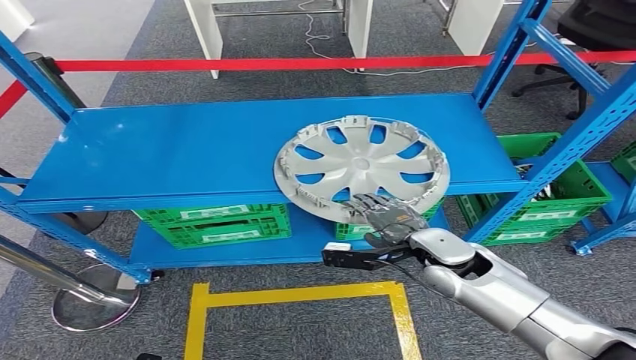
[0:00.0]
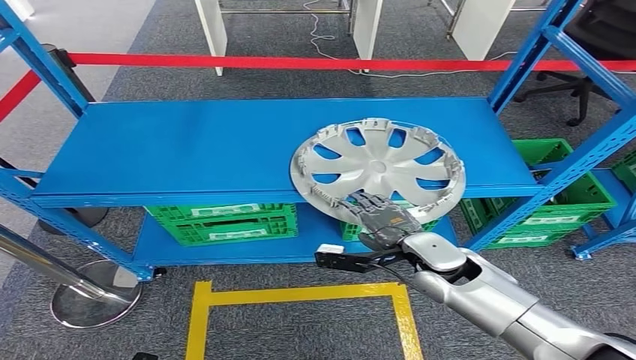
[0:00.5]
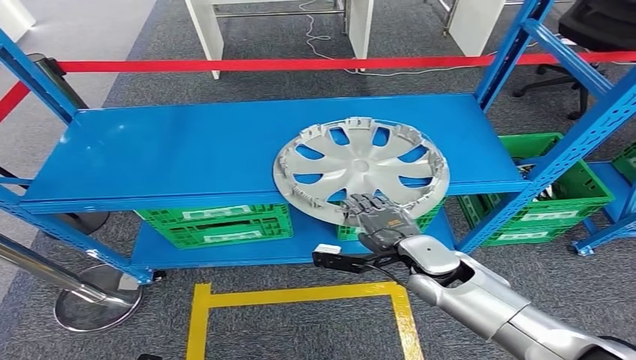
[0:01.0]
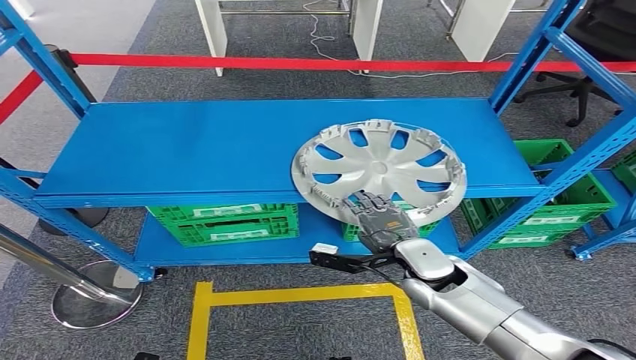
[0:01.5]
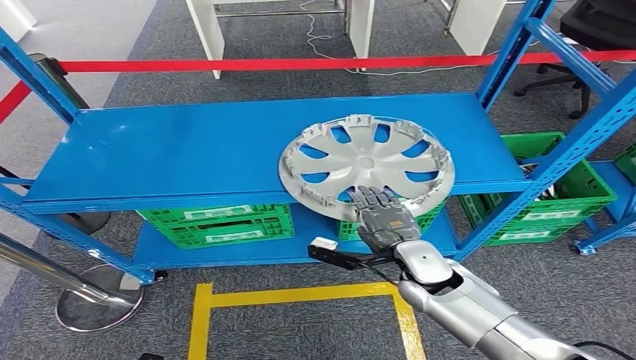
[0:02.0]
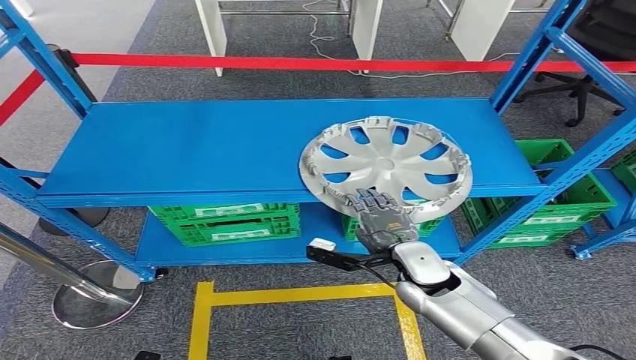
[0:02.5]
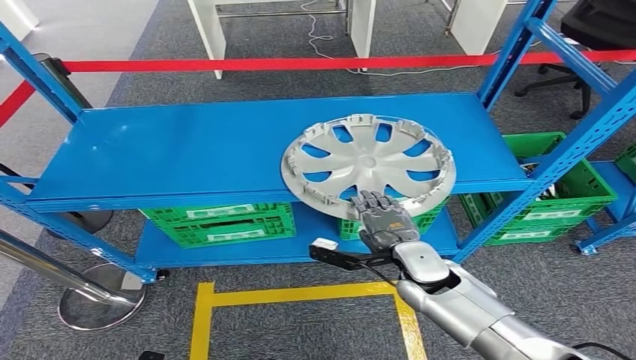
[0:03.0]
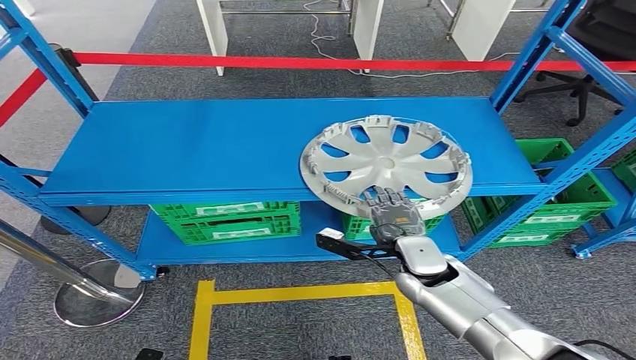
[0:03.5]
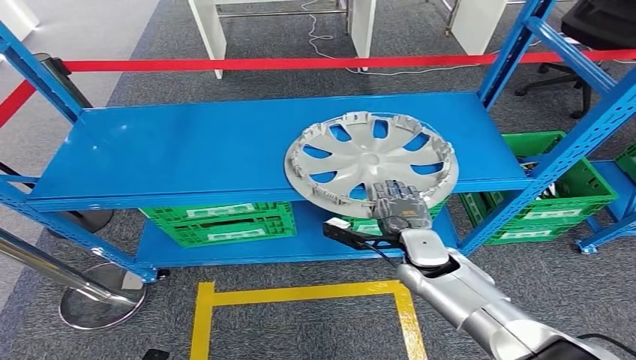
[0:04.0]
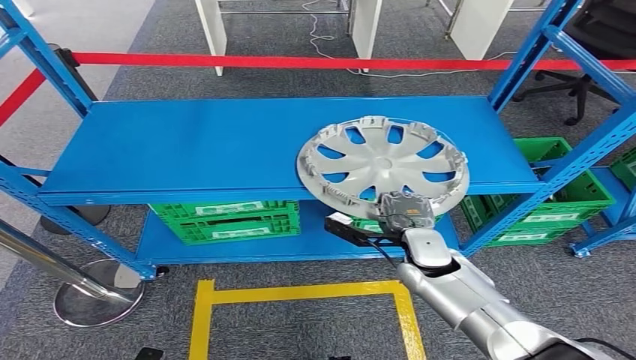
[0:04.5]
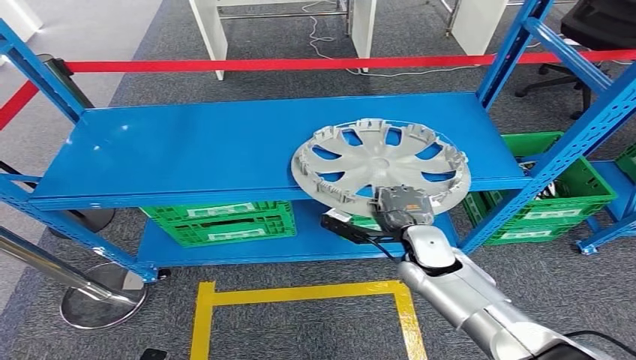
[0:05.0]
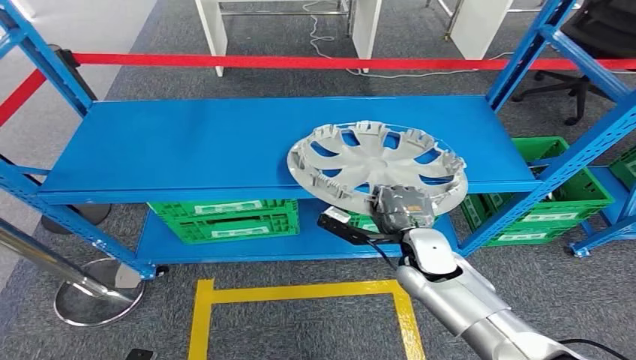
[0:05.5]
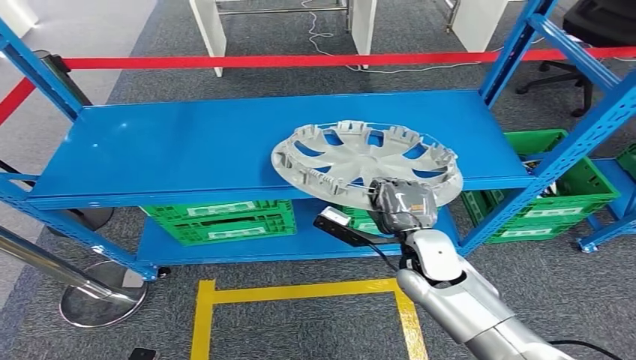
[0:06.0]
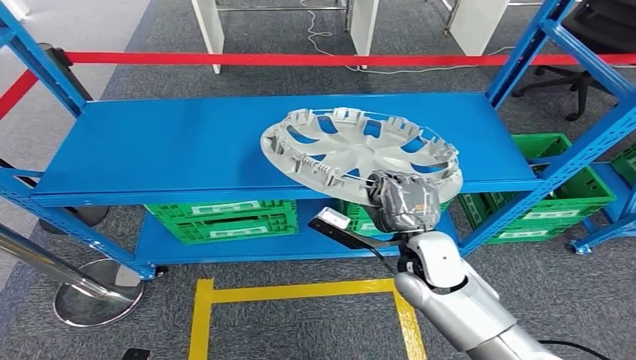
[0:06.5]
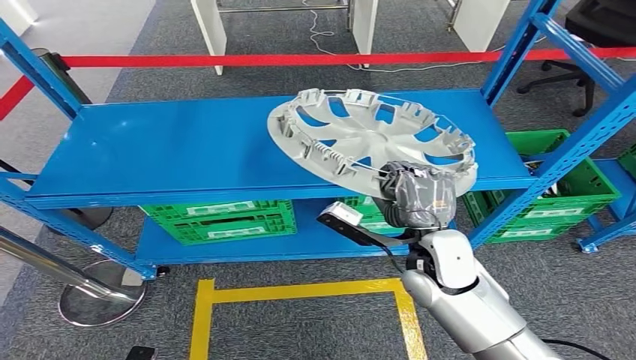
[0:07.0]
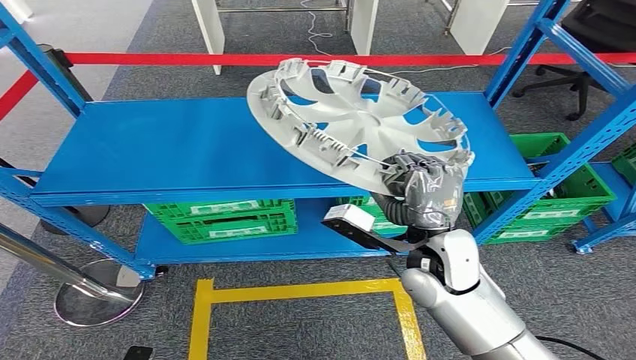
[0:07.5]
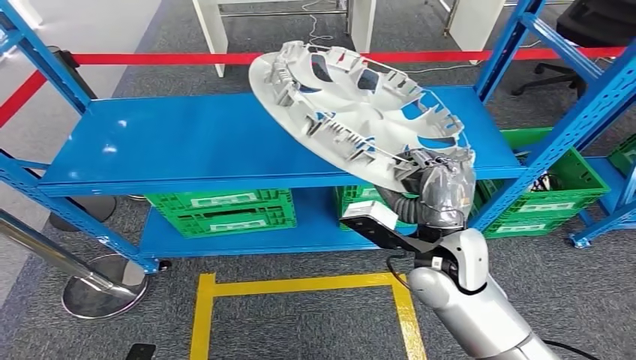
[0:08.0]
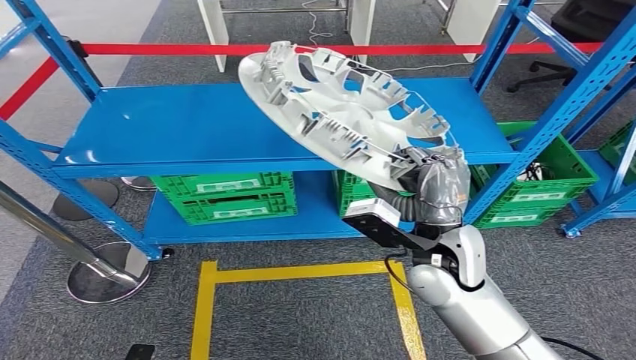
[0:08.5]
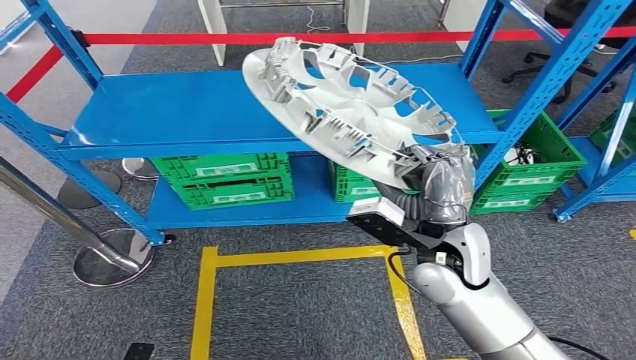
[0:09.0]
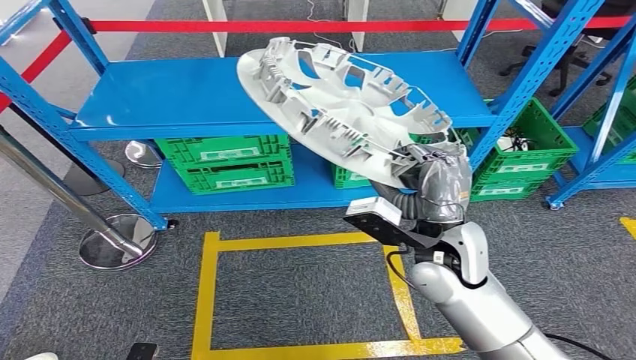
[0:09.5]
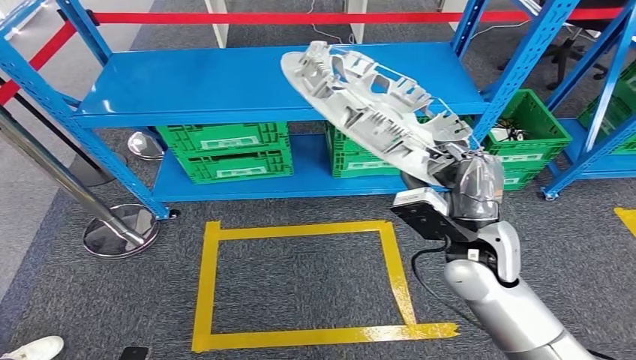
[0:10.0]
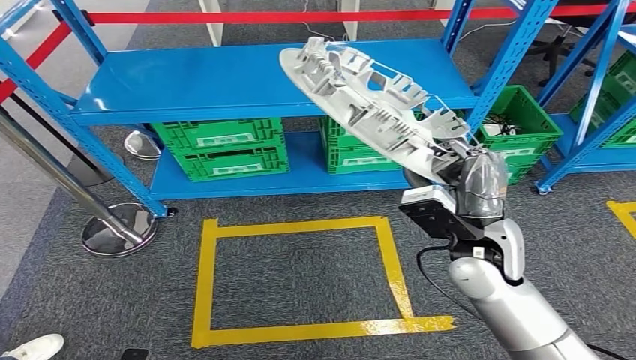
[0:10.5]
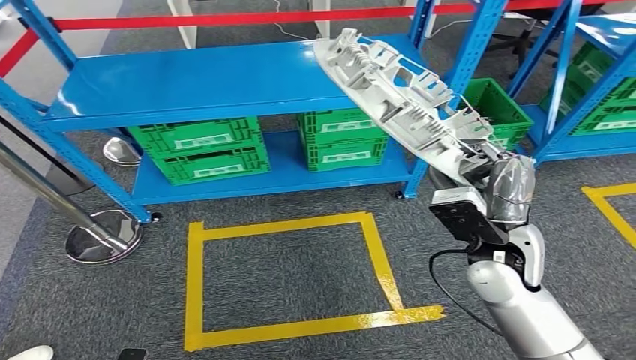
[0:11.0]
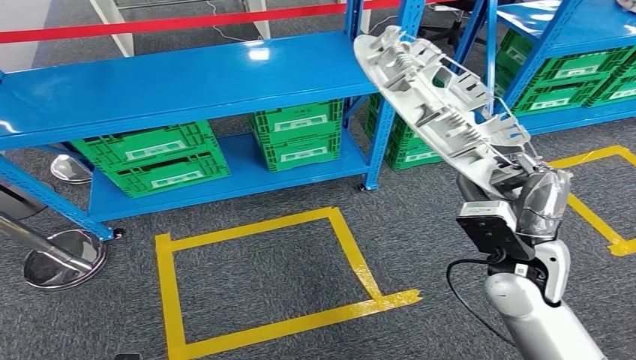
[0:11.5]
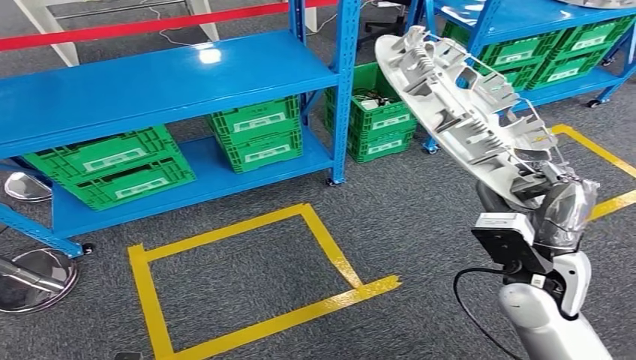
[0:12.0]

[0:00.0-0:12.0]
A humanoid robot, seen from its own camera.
Step, 0:00.0 to 0:08.0: Pick up the small component from the shelf.
0:00.0 to 0:02.0: The right hand changes place by some 5 cm.
0:02.0 to 0:04.0: The hands move only a little.

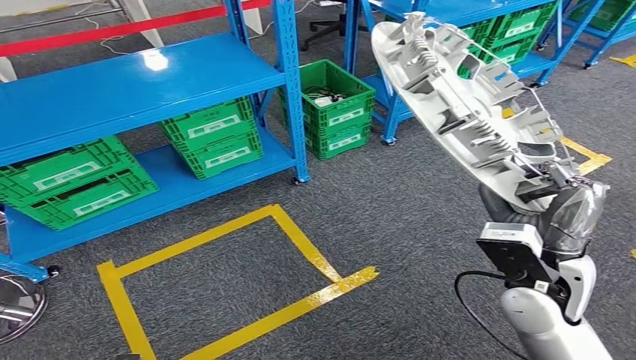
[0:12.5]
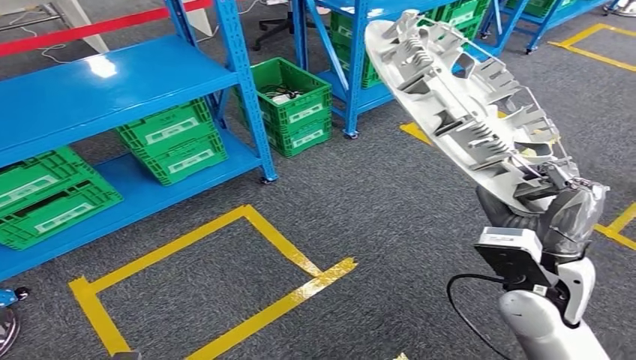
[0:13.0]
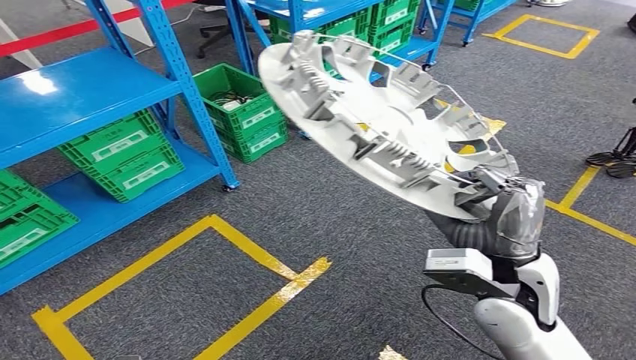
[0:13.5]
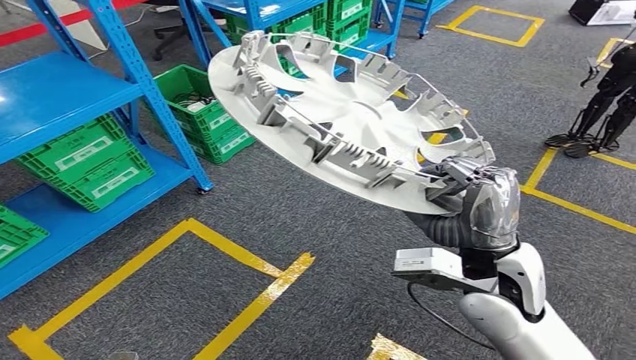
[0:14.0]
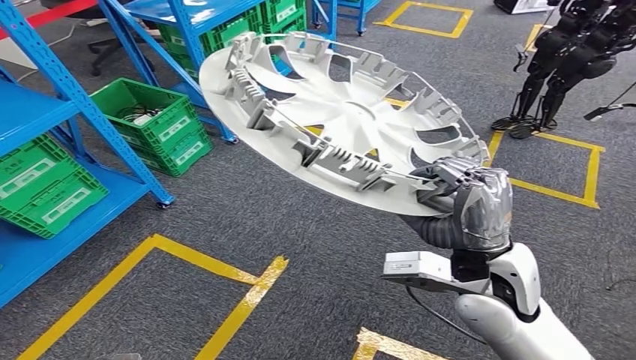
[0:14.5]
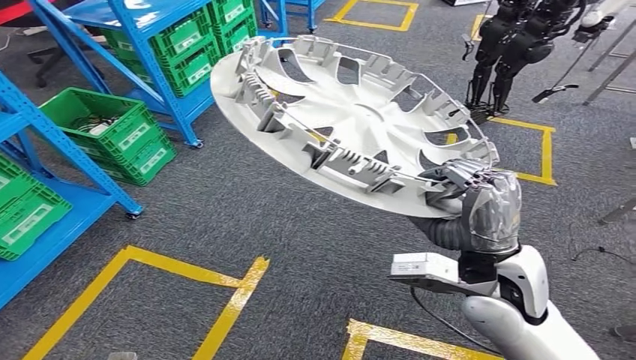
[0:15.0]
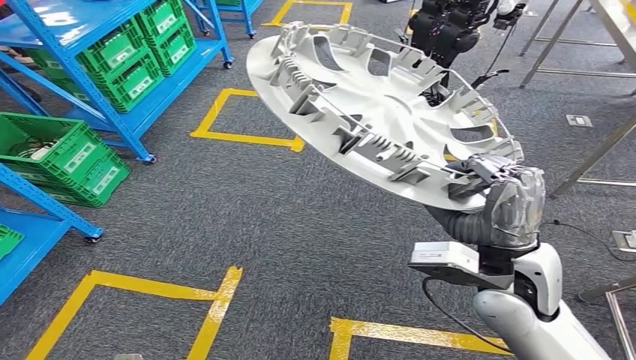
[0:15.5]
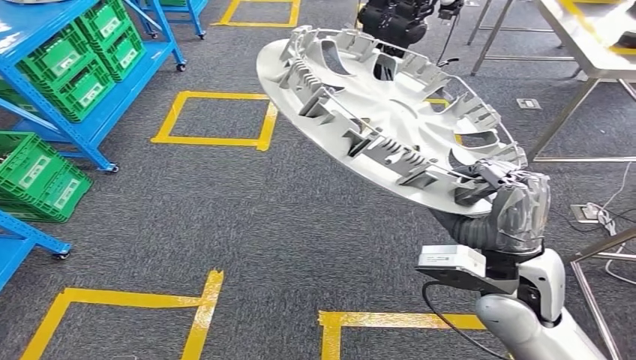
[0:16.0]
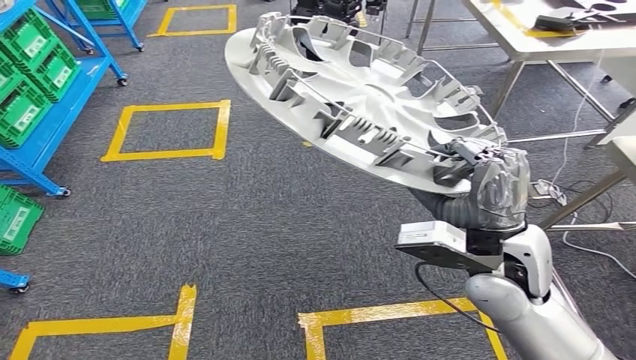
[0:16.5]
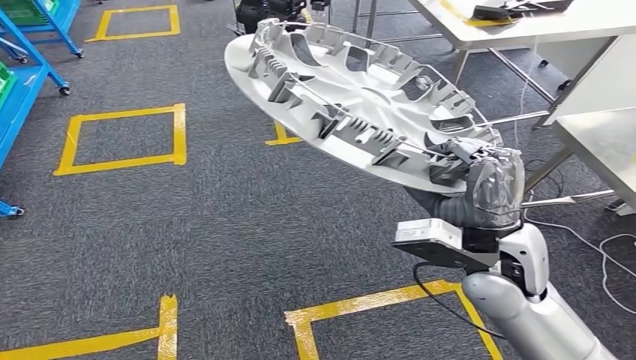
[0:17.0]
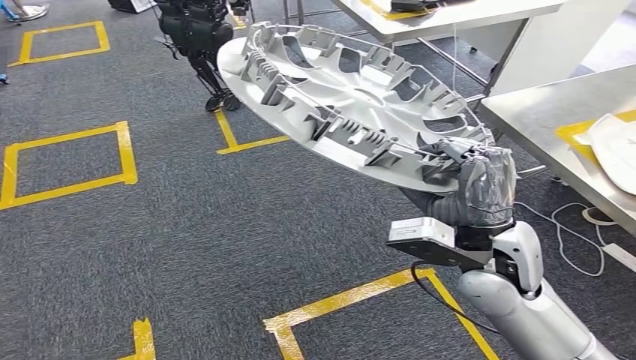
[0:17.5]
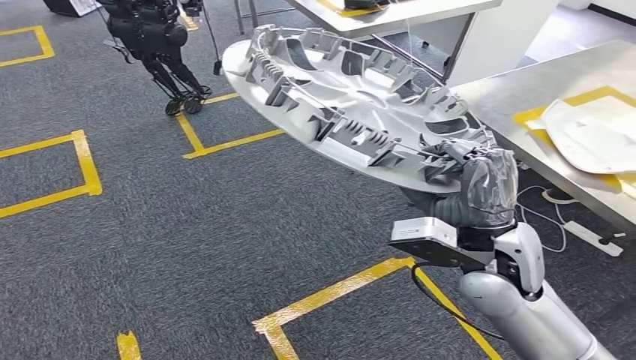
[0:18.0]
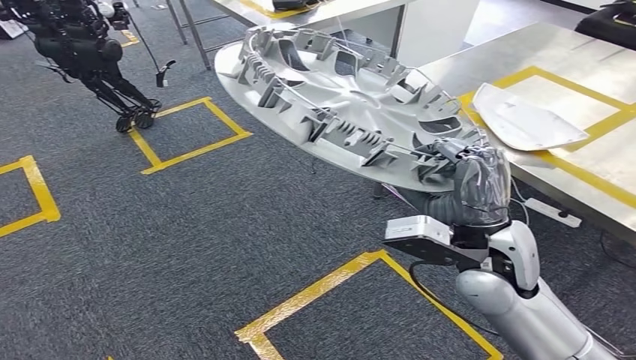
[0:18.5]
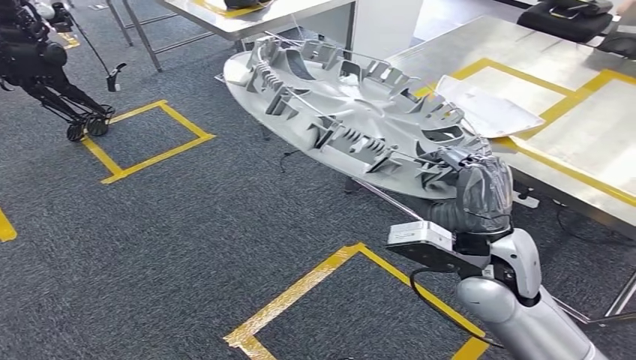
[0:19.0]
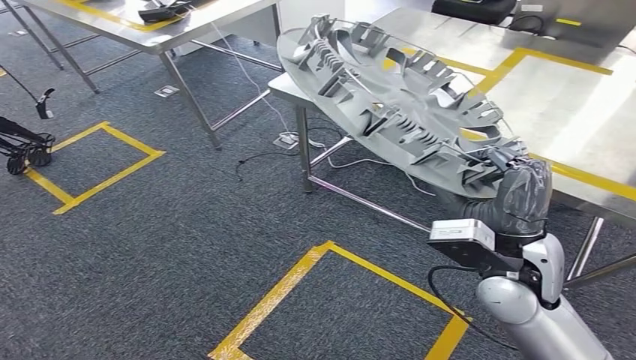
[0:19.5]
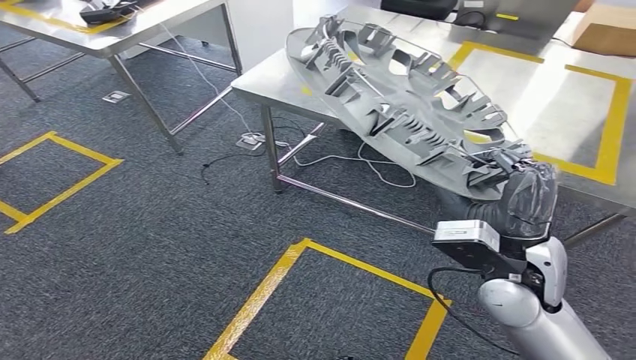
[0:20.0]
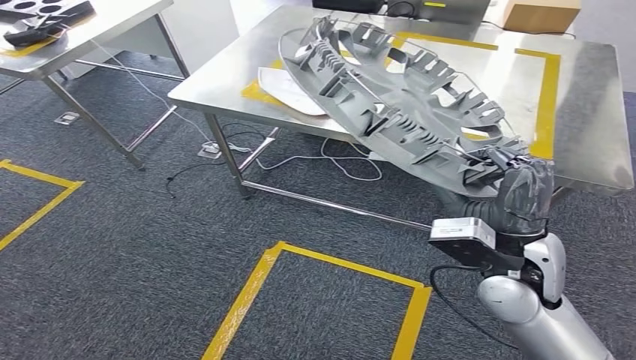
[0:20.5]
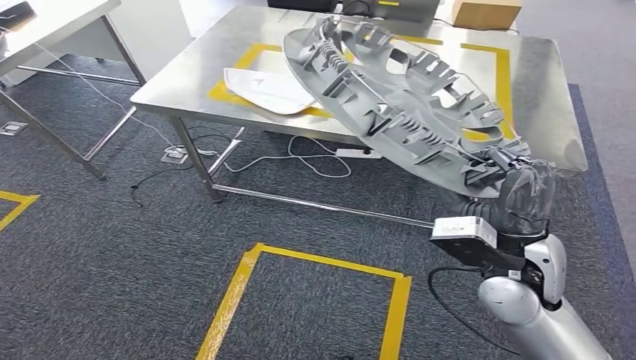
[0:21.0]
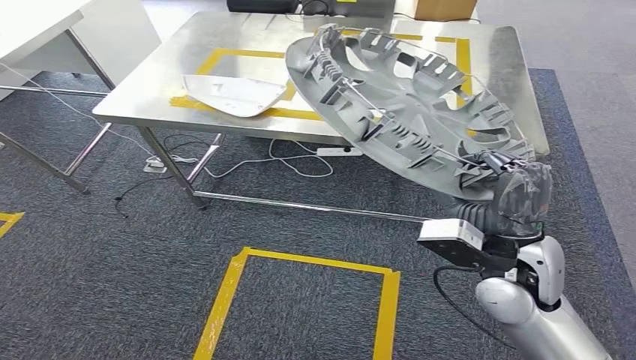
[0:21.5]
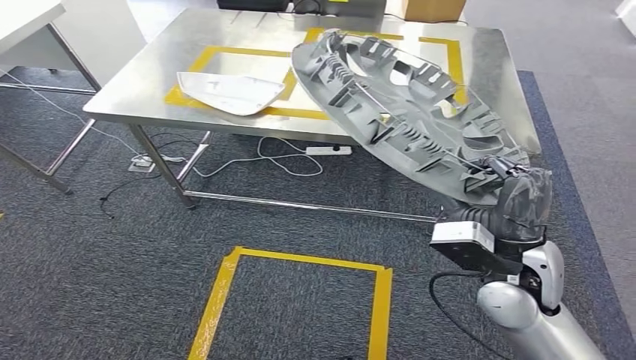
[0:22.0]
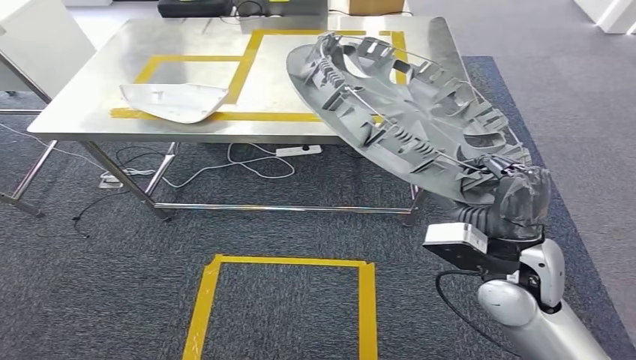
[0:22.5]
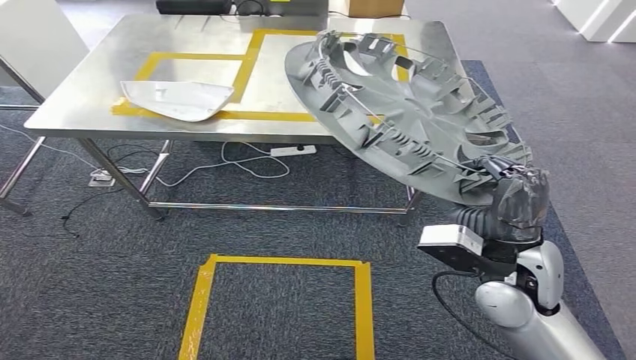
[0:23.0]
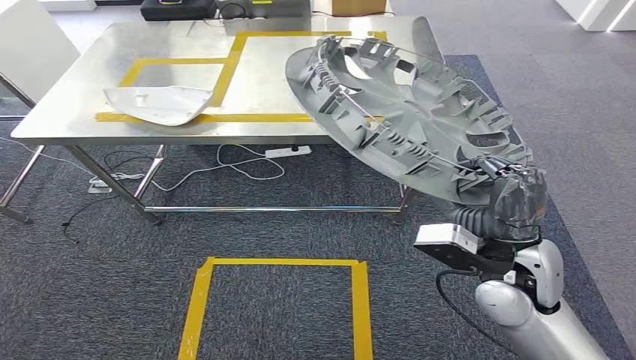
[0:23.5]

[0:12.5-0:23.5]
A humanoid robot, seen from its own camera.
Step, 0:12.5 to 0:19.0: Move the small component to the workbench.
